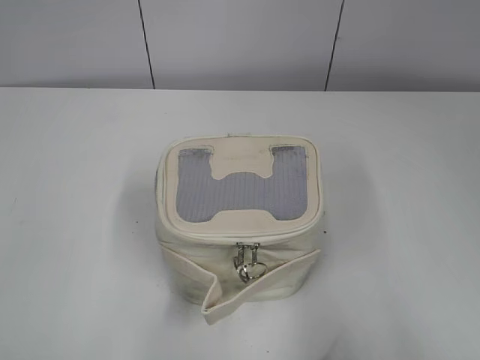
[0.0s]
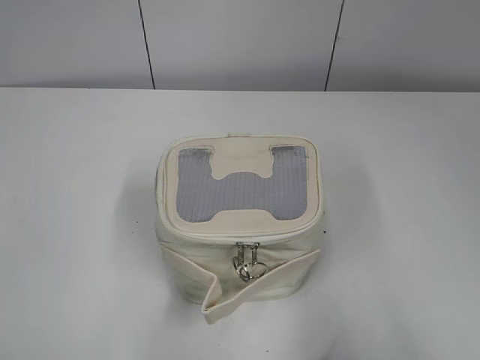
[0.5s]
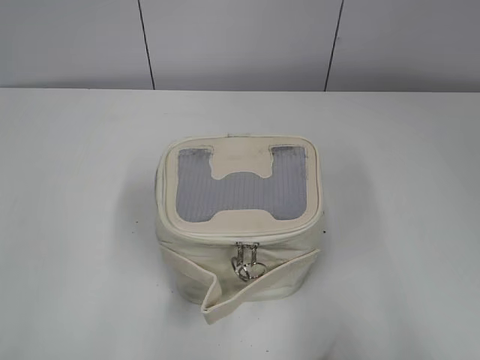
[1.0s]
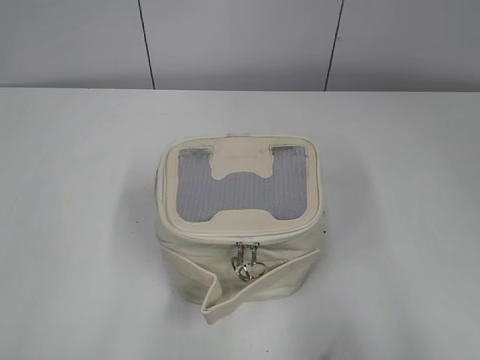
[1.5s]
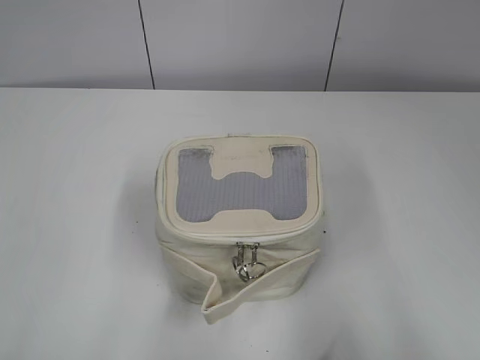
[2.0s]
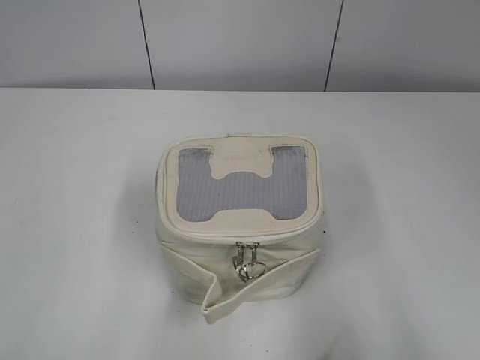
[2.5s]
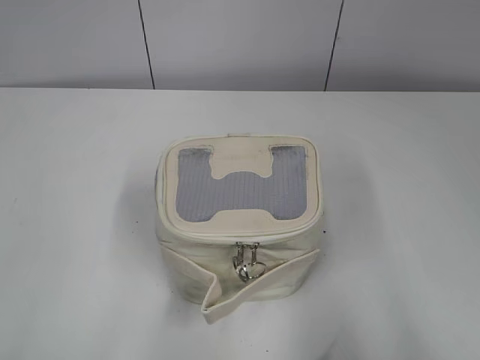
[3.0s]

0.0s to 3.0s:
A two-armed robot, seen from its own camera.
1.5s to 3.0s: Neither gripper changes place.

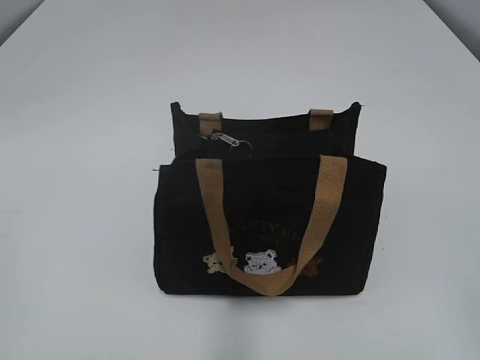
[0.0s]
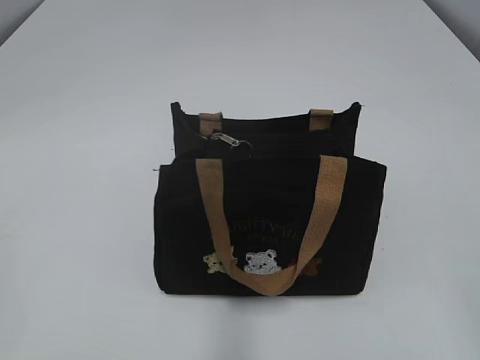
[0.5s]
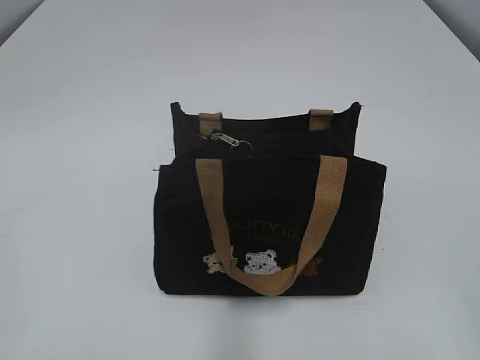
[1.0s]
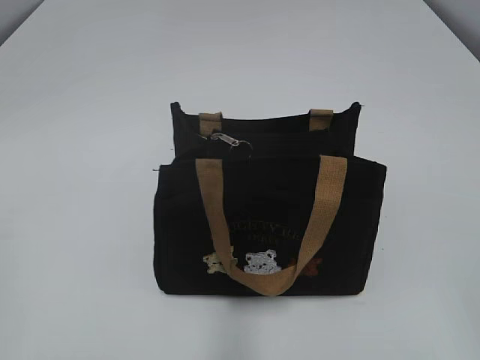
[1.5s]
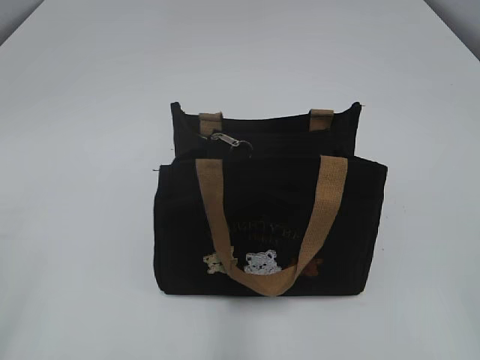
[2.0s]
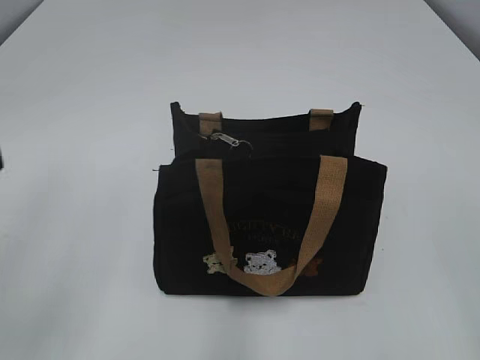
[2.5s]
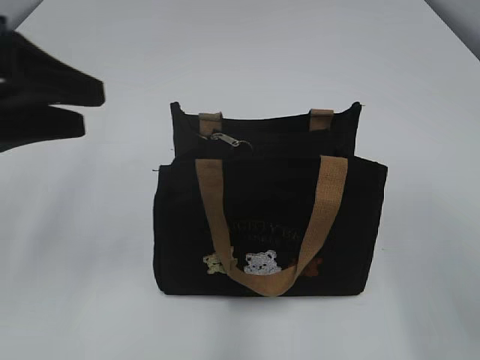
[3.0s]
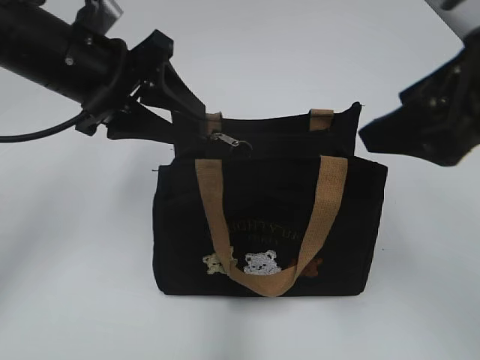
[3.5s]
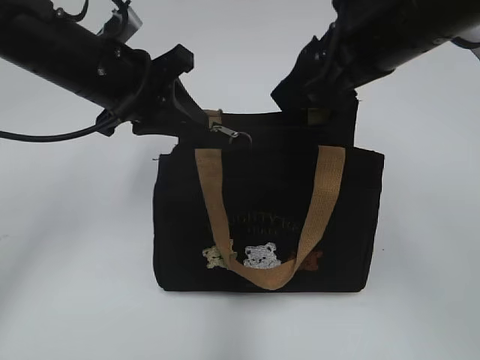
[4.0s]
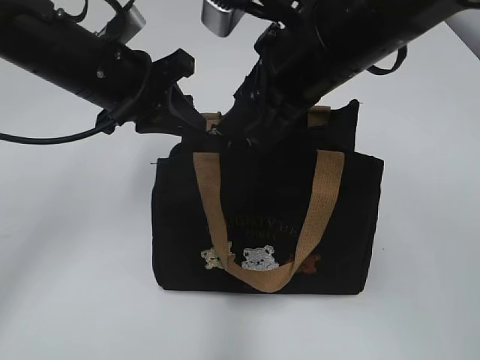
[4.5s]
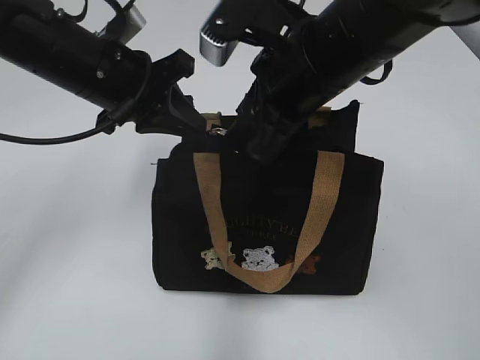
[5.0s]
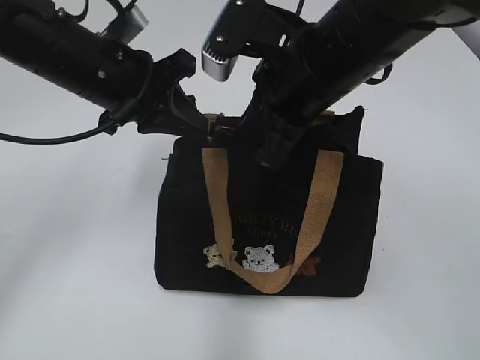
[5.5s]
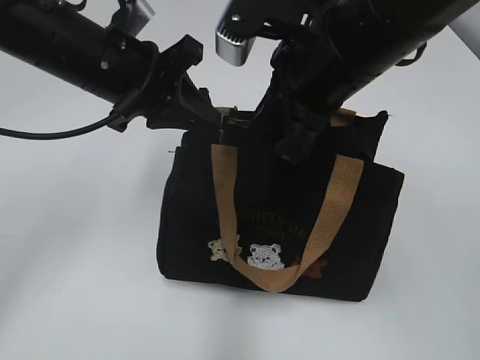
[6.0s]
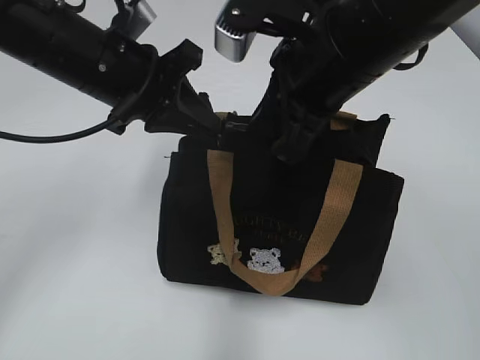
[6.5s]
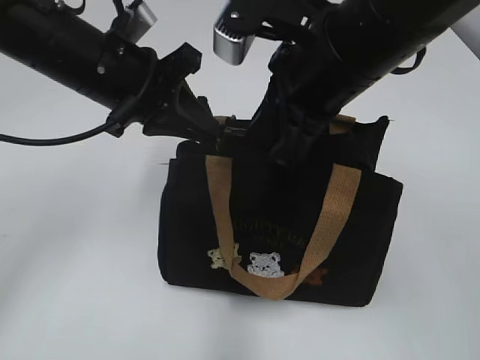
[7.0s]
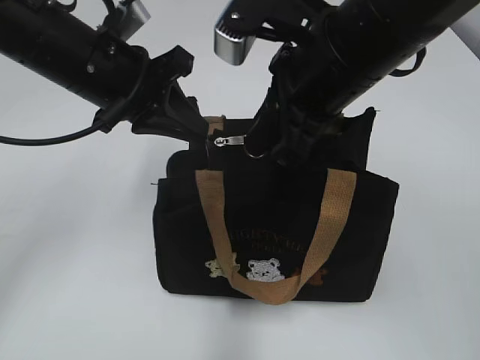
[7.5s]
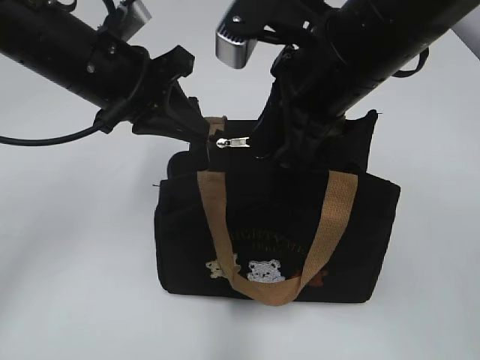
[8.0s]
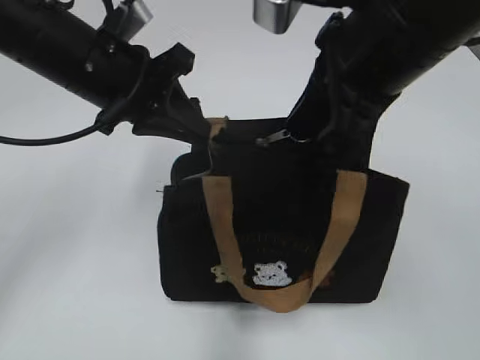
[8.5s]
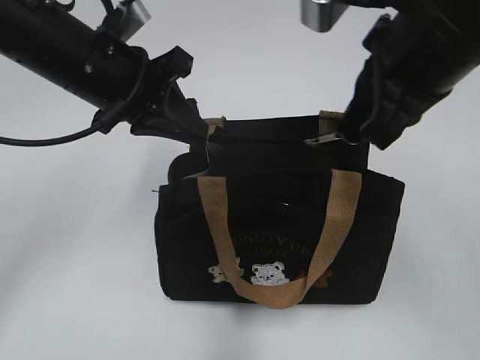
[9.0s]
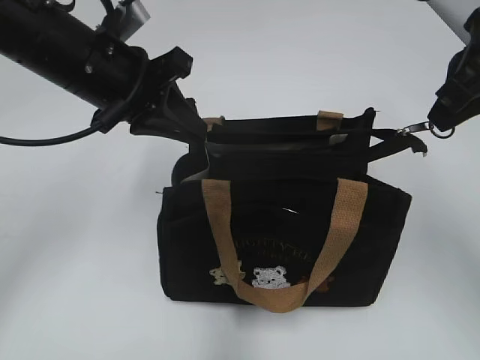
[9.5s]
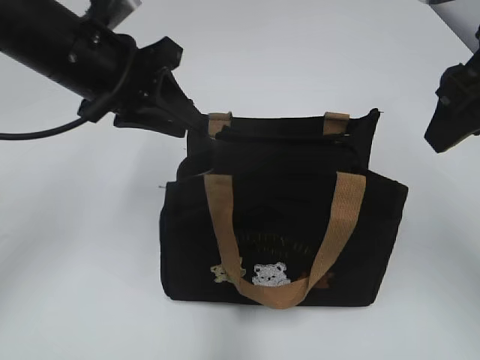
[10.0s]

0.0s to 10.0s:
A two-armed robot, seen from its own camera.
Step, 0.0s to 9.5s: Pull open the zipper with your right hand.
2.0s to 4.0s: The right gripper is displaced forward and to the left by some 30 cm, while the left gripper moves forward and to the right, some 35 cm, and opens, then closes again.
4.0s to 6.0s: The right gripper closes up. The left gripper closes up.
6.0s to 8.0s: The grippers stay close to where they were, moving slightly.
8.0s to 10.0s: The right gripper moves to the right, some 15 cm, and opens up.

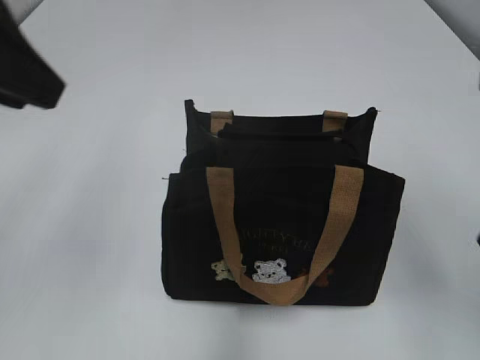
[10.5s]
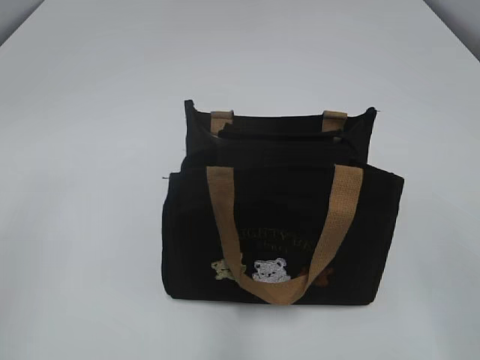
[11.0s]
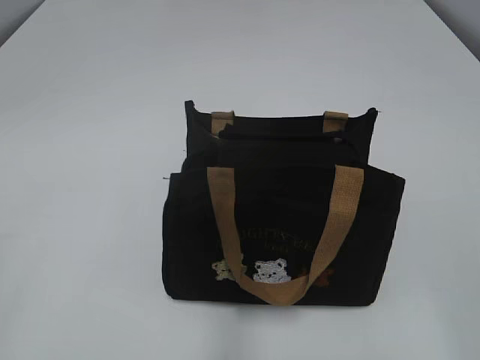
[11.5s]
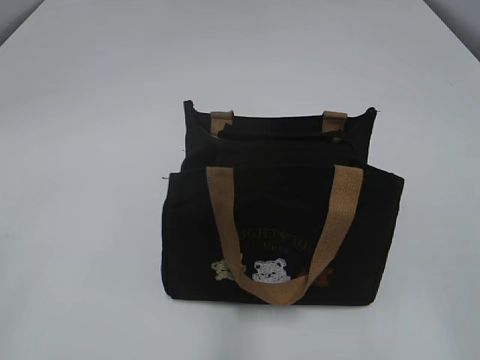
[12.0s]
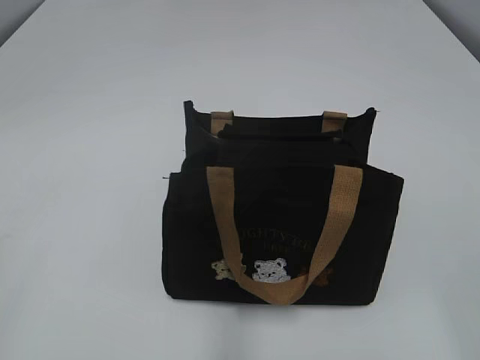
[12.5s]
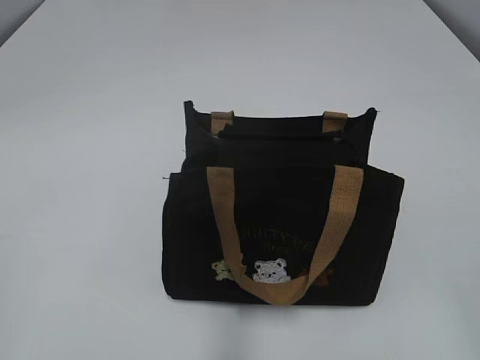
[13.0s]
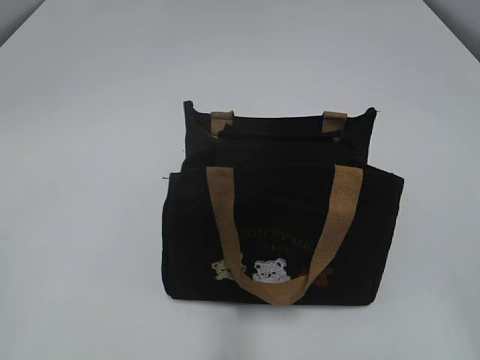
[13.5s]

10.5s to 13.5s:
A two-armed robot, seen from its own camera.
10.5s to 12.0s: The right gripper goes approximately 20 cm backward. The left gripper shifts about 25 cm backward and to the left.

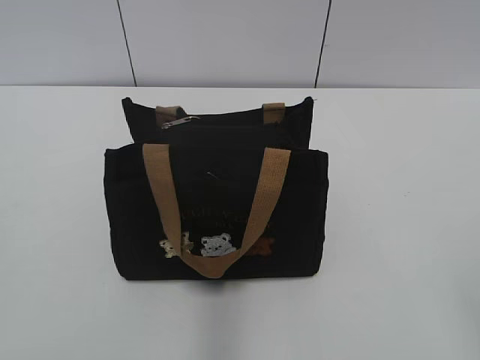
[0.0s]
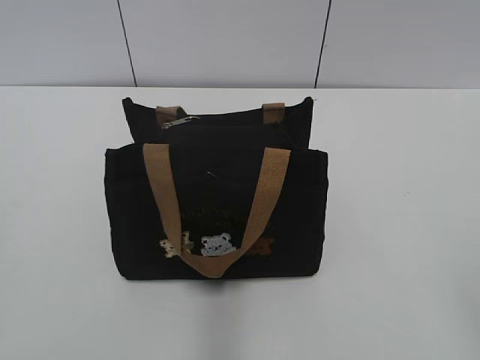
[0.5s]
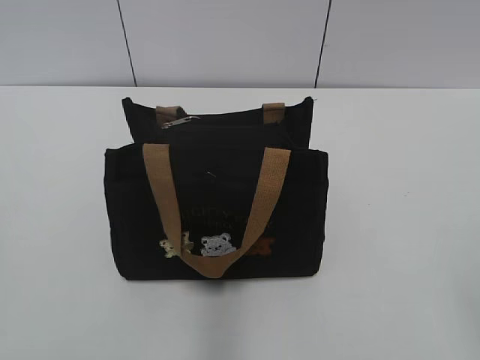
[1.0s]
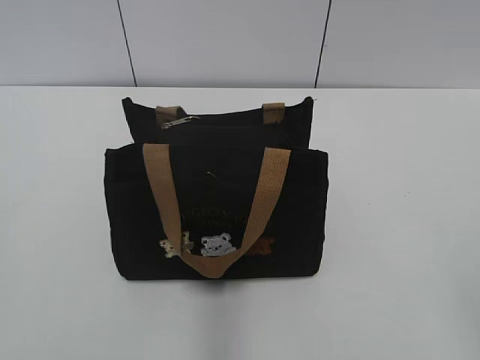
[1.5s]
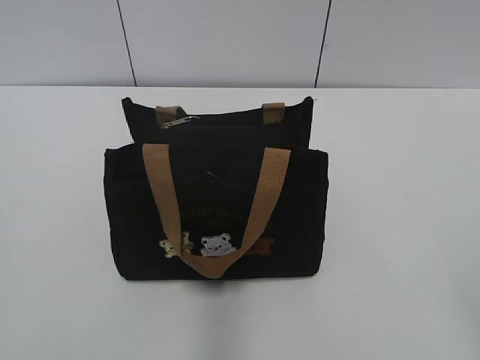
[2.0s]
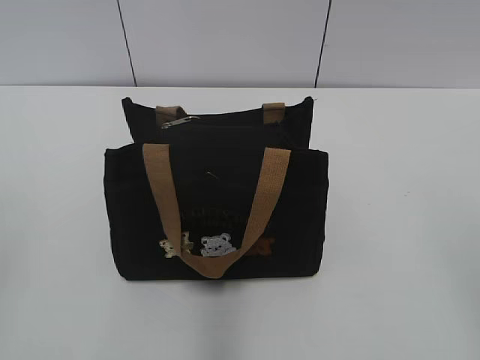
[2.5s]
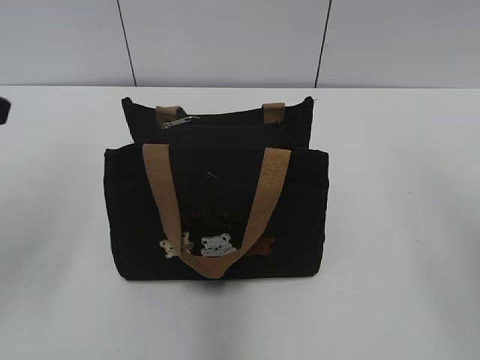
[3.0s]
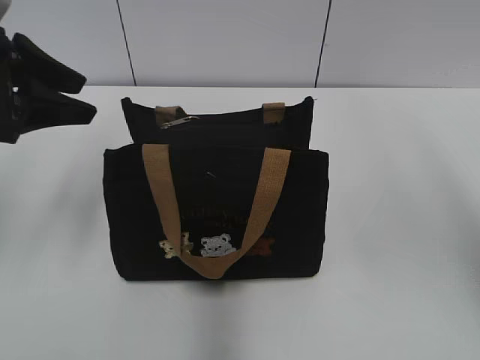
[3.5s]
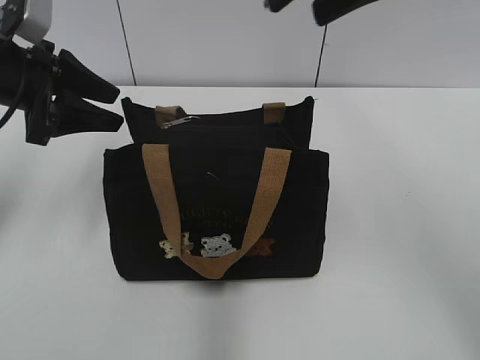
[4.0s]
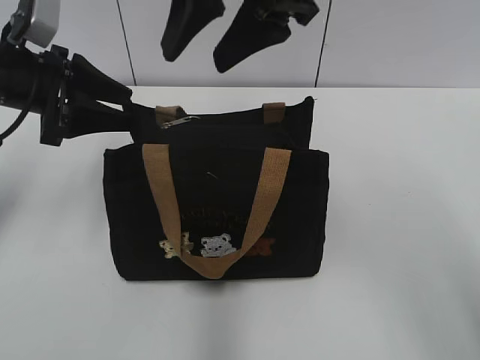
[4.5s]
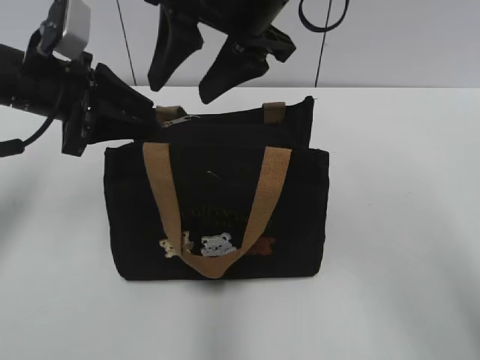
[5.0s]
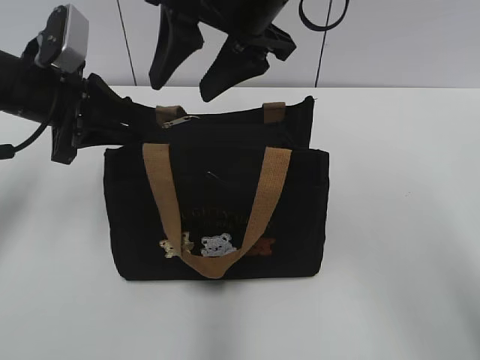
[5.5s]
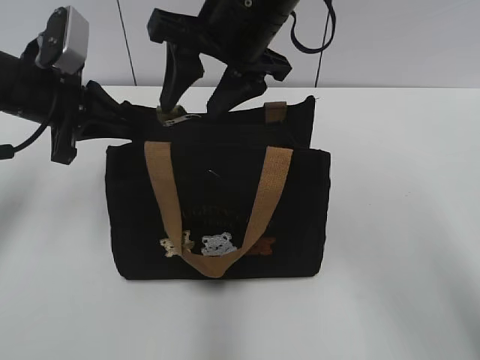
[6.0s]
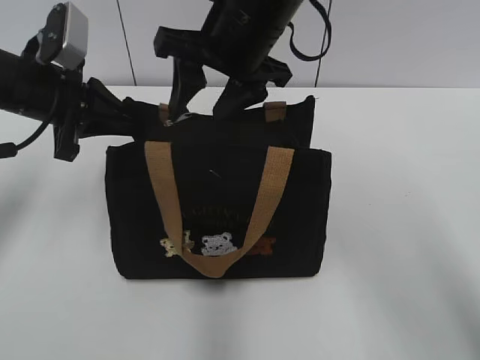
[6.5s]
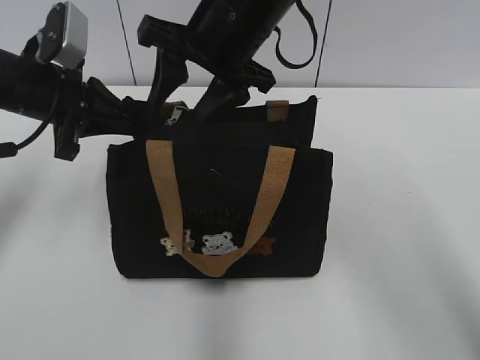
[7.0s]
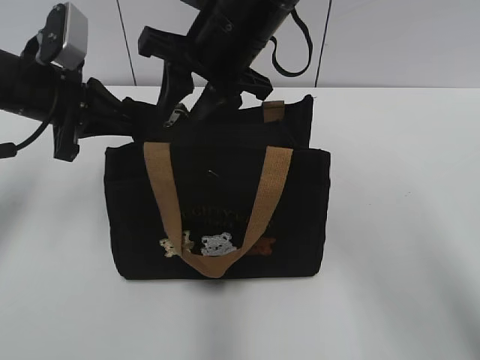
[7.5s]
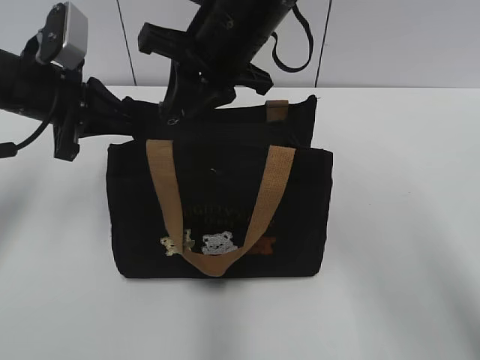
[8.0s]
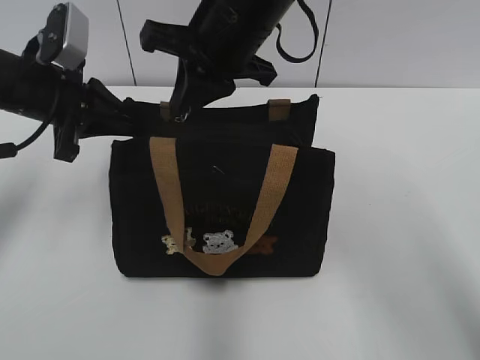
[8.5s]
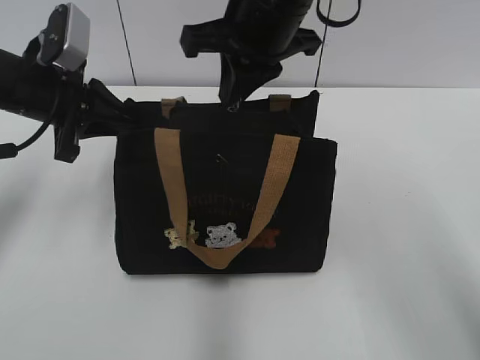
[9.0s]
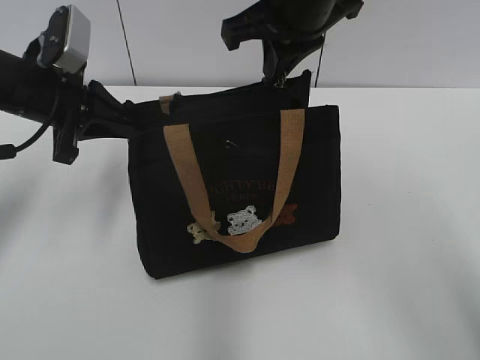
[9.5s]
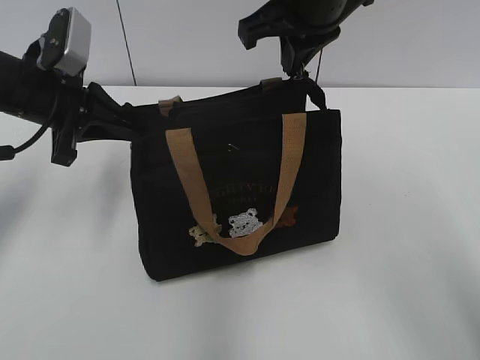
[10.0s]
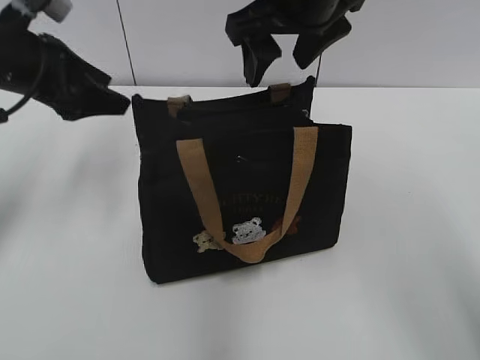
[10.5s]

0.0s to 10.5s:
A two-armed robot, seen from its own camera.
Step, 0.0s to 10.0s: Pull open the zipper with your right hand.
2.0s to 4.0s: The left gripper heads forward, covering about 35 cm. Meanwhile the right gripper moves forward, to the left and upward, approximately 35 cm.
4.0s to 6.5s: The left gripper closes its fingers; the right gripper is displaced downward, to the left and forward by approximately 20 cm.
6.5s to 8.5s: The right gripper closes up.
8.5s to 10.5s: The left gripper opens up. Meanwhile the right gripper heads to the right, covering approximately 5 cm, and opens its fingers.
